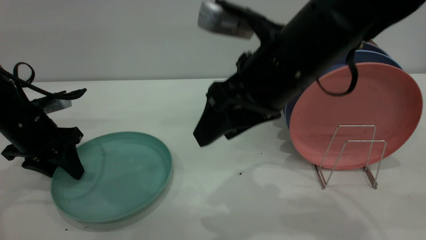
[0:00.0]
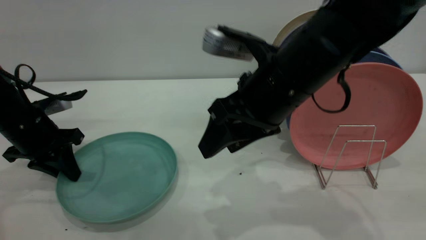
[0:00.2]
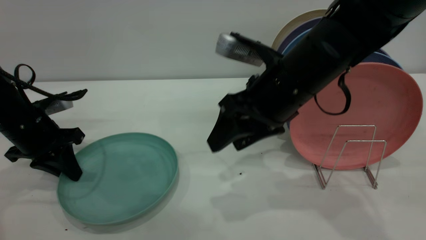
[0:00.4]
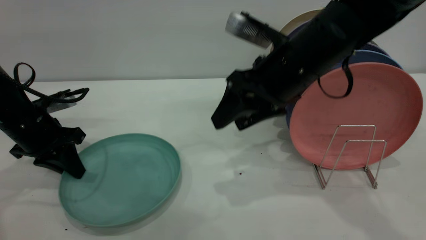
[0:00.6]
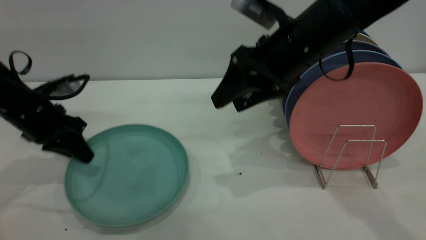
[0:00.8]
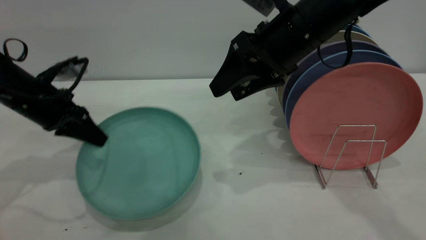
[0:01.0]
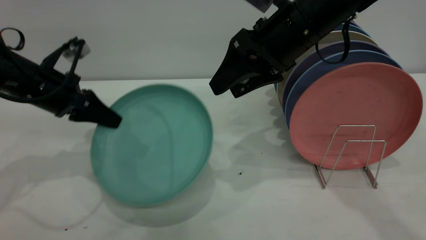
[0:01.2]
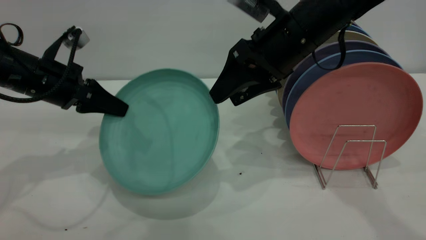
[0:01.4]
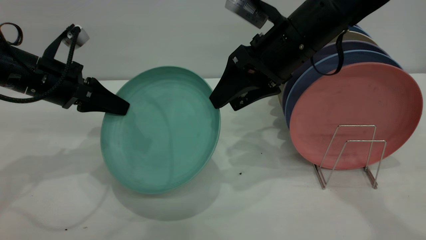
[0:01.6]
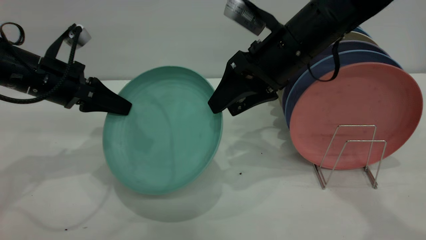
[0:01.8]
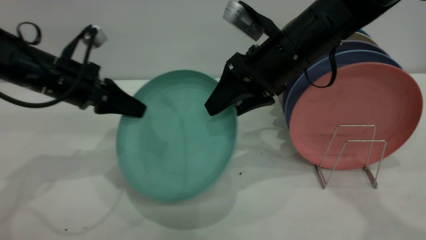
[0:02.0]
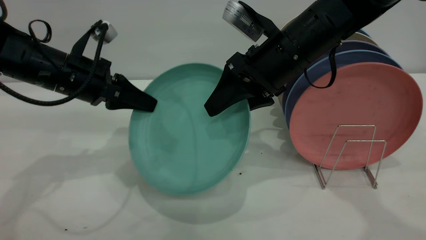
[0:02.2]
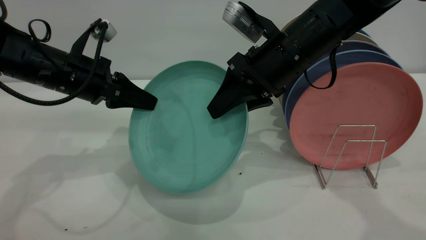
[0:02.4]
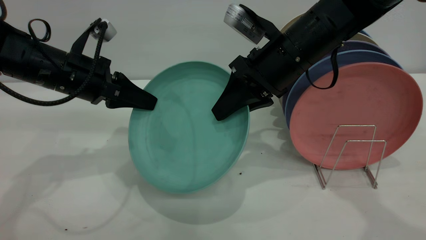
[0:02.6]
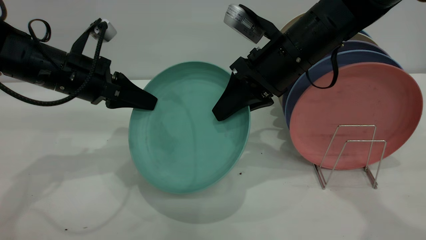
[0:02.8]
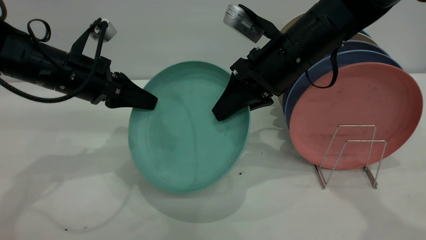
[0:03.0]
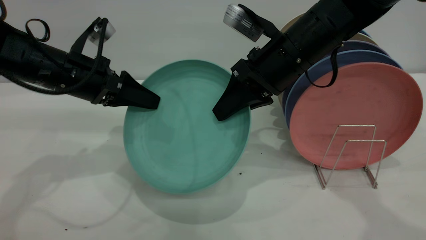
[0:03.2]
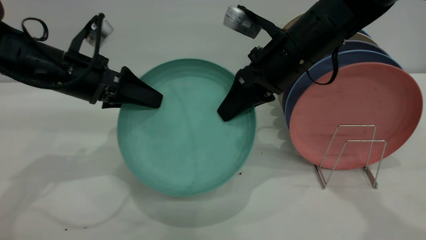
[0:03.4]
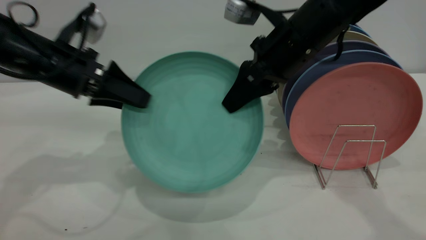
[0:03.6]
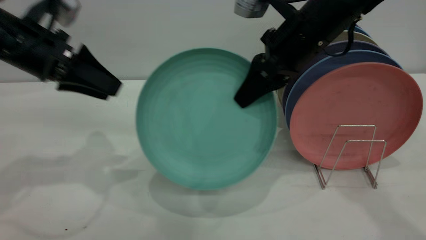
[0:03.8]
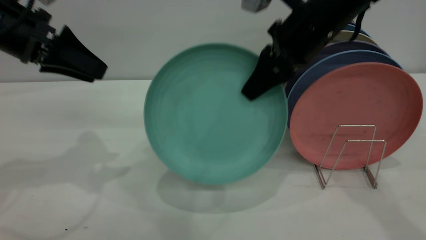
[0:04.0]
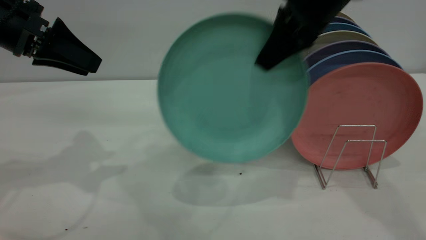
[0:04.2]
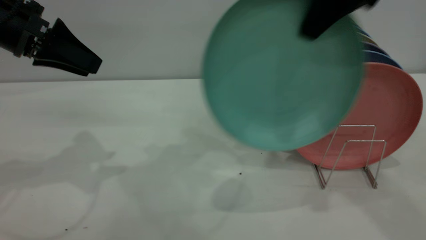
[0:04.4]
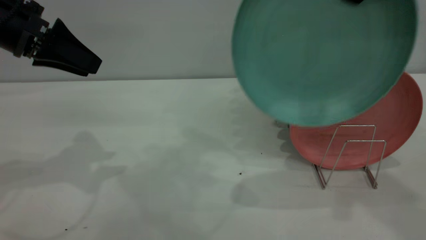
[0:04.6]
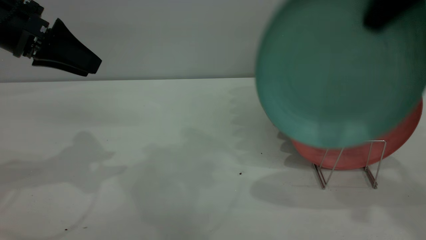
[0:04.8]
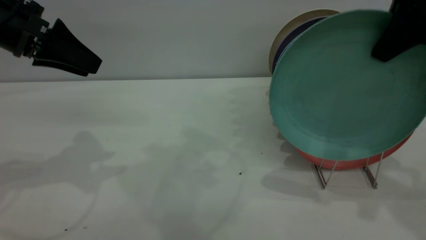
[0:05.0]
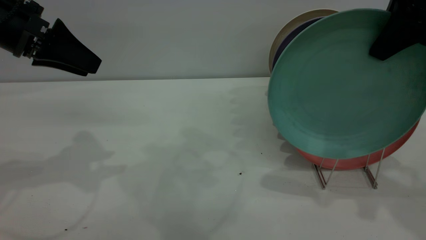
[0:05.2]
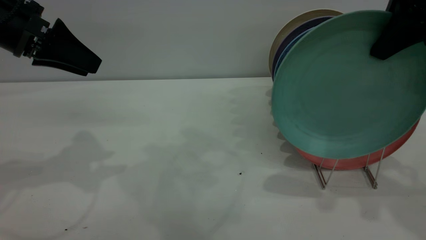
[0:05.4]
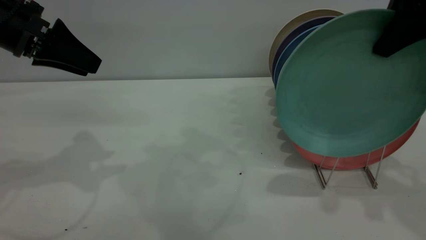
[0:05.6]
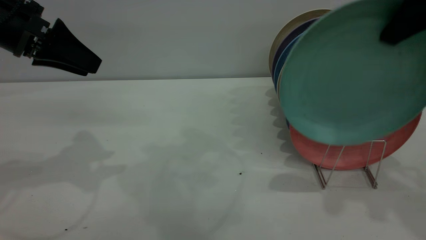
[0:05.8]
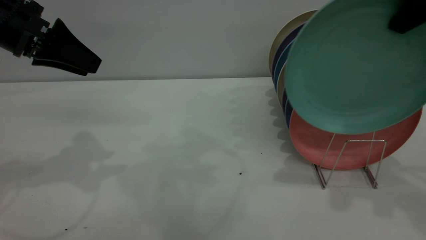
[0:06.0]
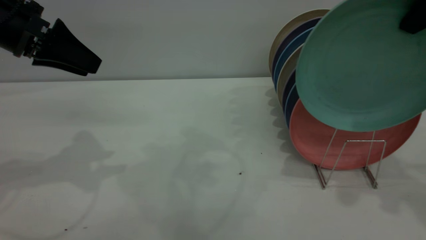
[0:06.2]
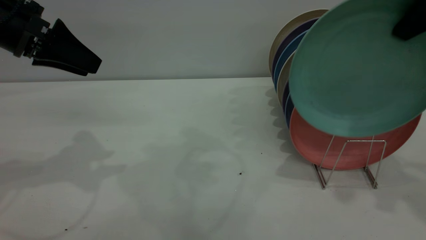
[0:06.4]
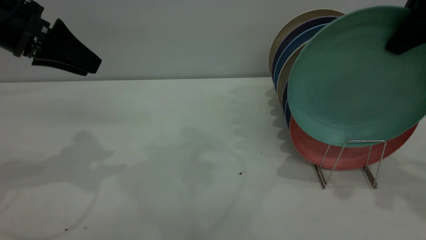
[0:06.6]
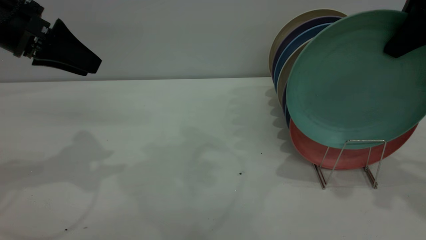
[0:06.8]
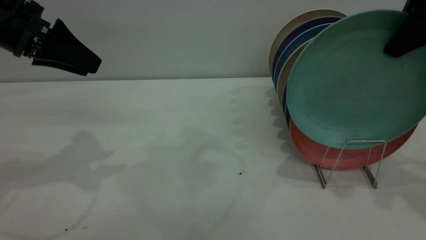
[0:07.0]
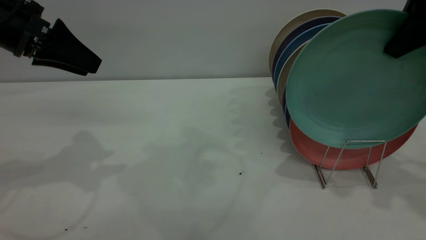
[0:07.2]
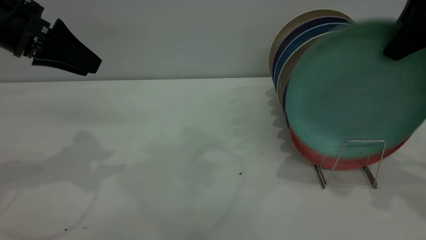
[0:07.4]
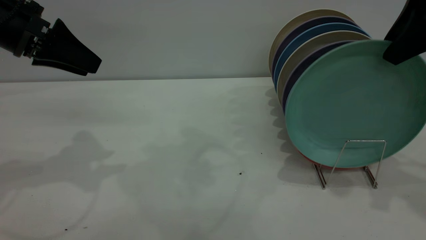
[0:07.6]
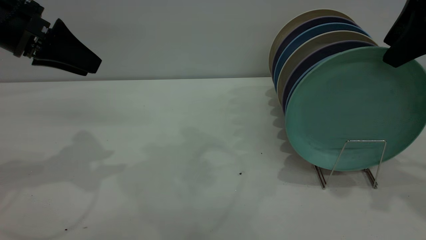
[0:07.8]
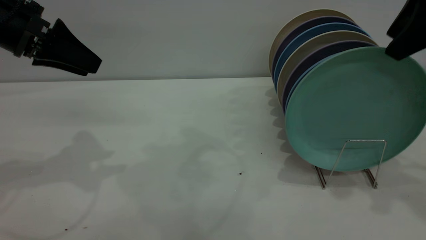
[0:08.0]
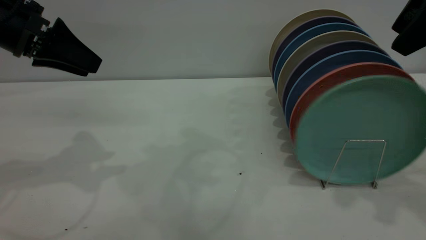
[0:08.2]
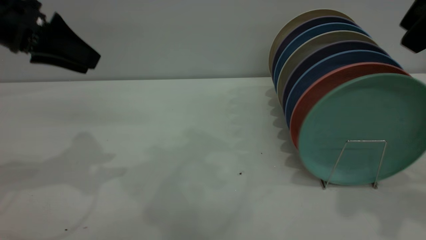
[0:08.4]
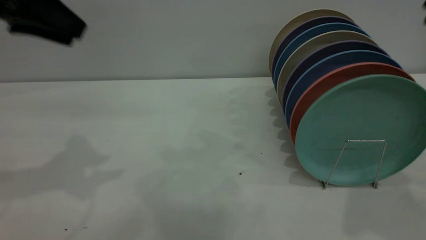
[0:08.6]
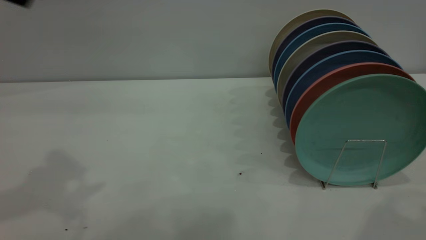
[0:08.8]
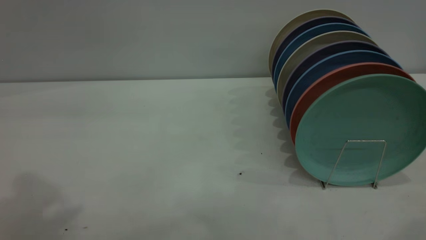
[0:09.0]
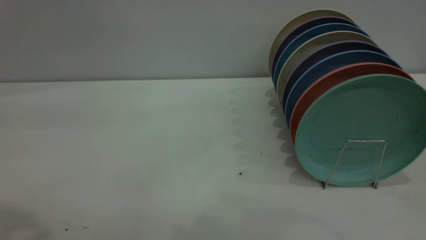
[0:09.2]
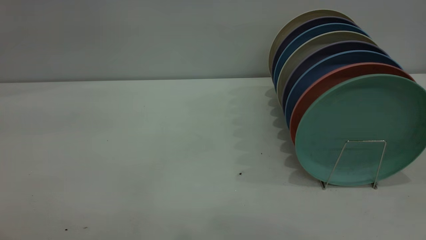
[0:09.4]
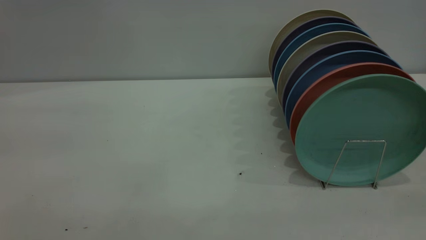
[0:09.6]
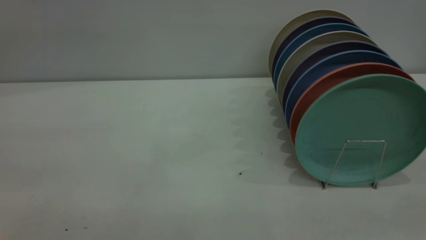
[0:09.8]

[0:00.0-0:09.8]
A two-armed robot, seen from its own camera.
Task of the whole recording: the left gripper grasp the green plate, the left gripper pass the green plate to the right gripper, and the right gripper place the green plate on the plate rack.
Step, 0:01.0 to 0:04.2: Pass the plate from the left gripper to the right gripper.
Step, 0:04.4 to 0:08.2: Place the plate on the shelf.
0:00.0 to 0:01.4: The right gripper moves forward, some 10 cm. Meanwhile the left gripper travels upward by roughly 5 cm, and closes up.
0:01.4 to 0:02.8: The right gripper closes its fingers.
0:02.8 to 0:04.2: The left gripper heads upward and to the left, covering roughly 10 cm, and opens its fingers. Meanwhile the right gripper goes some 10 cm upward.
0:04.2 to 0:05.6: The right gripper shifts approximately 10 cm to the right and backward.
0:05.6 to 0:07.0: The grippers stay close to where they were, moving slightly.
0:07.0 to 0:08.4: The right gripper shifts by some 5 cm, and opens.
0:08.4 to 0:09.8: The left gripper shifts roughly 30 cm backward and upward. Meanwhile the right gripper travels backward by about 25 cm.
